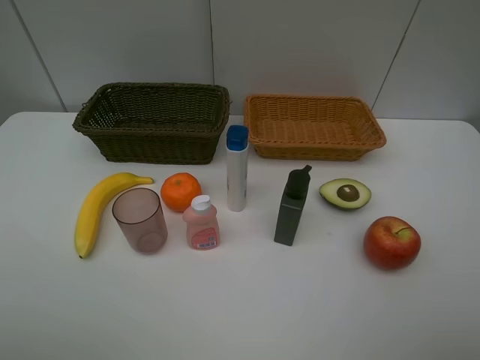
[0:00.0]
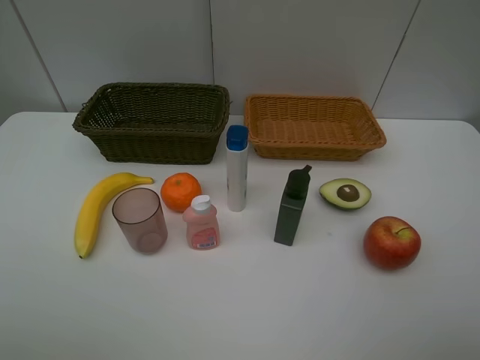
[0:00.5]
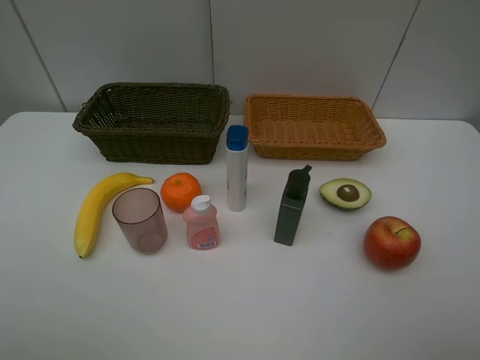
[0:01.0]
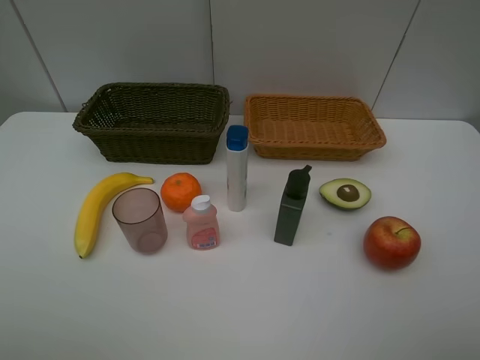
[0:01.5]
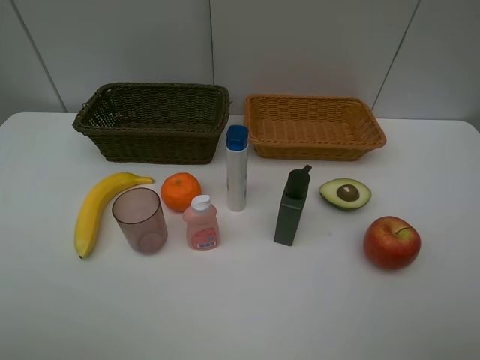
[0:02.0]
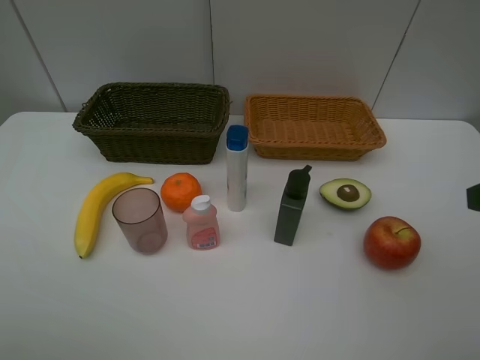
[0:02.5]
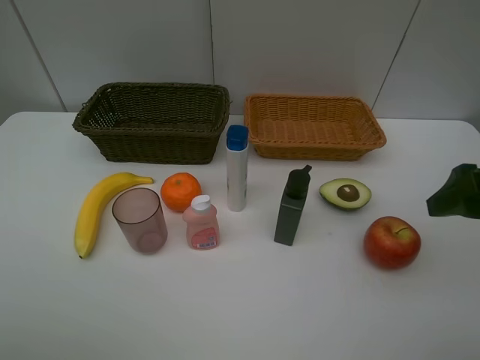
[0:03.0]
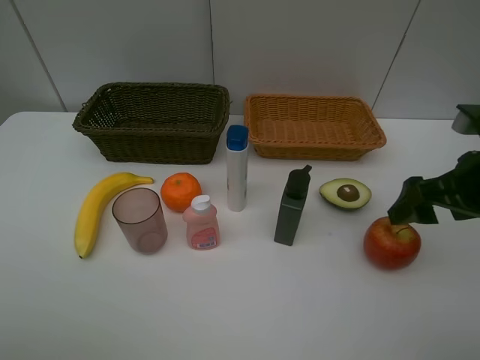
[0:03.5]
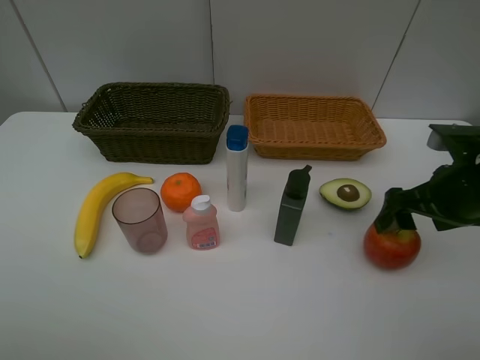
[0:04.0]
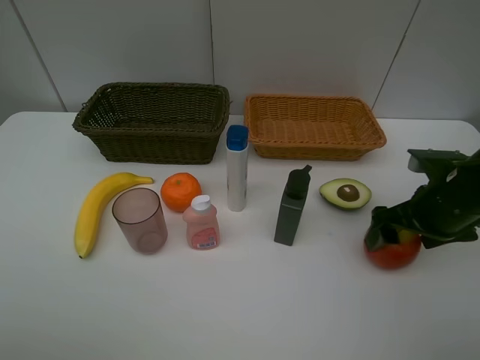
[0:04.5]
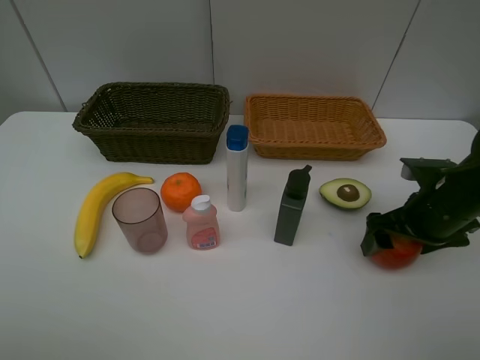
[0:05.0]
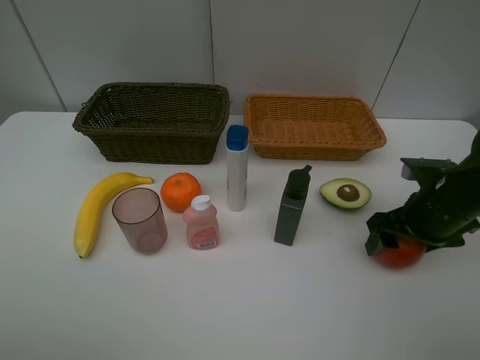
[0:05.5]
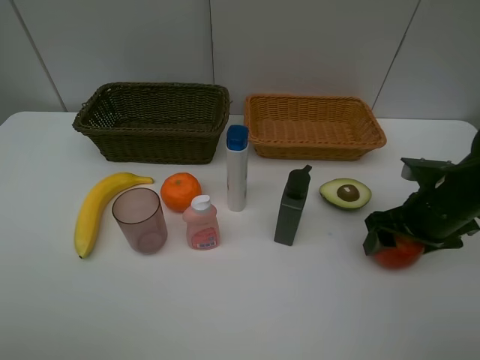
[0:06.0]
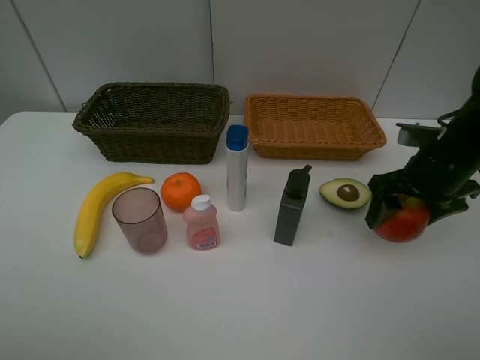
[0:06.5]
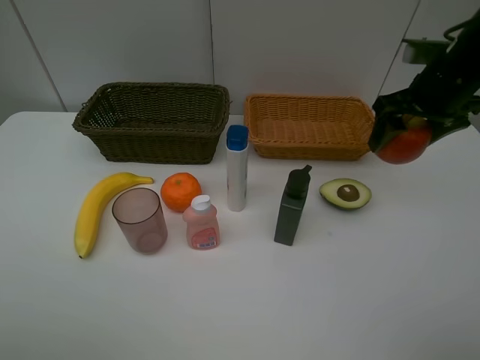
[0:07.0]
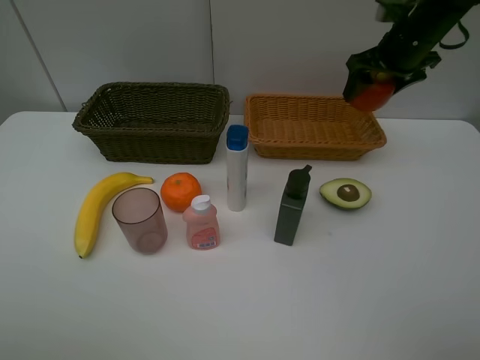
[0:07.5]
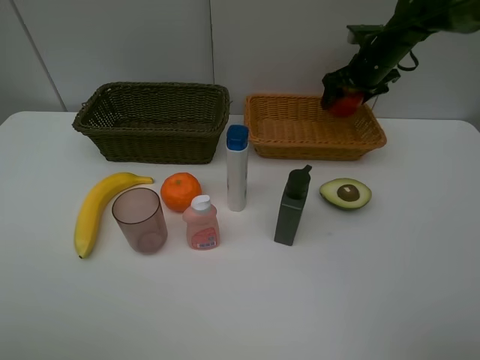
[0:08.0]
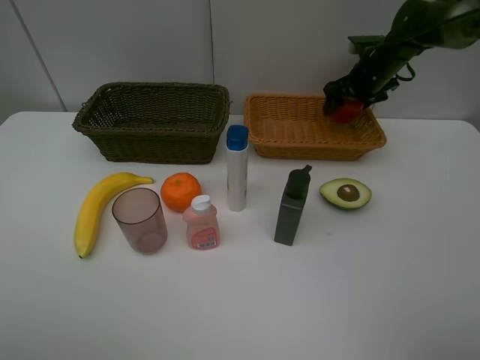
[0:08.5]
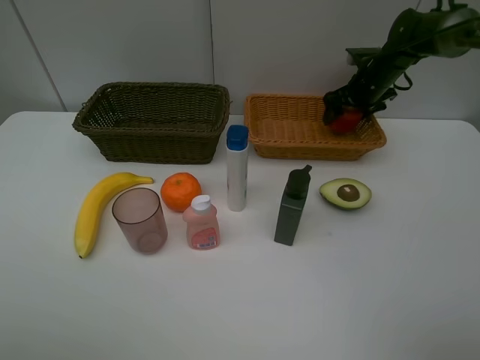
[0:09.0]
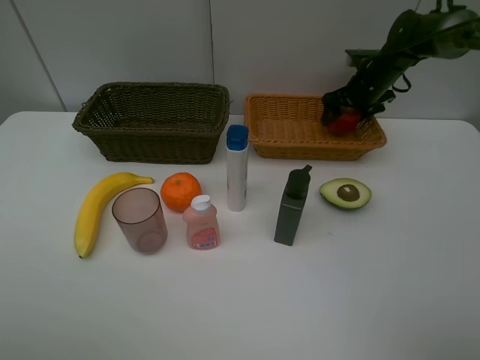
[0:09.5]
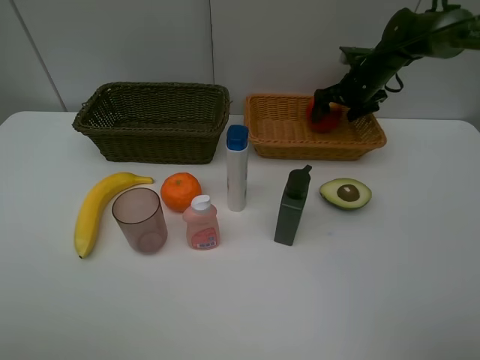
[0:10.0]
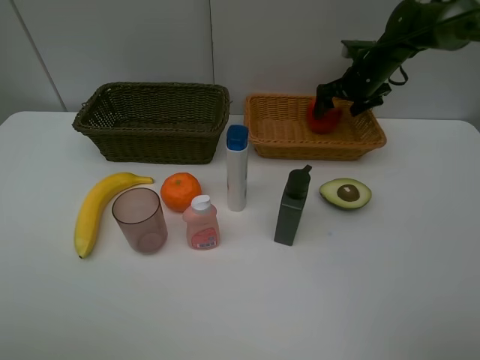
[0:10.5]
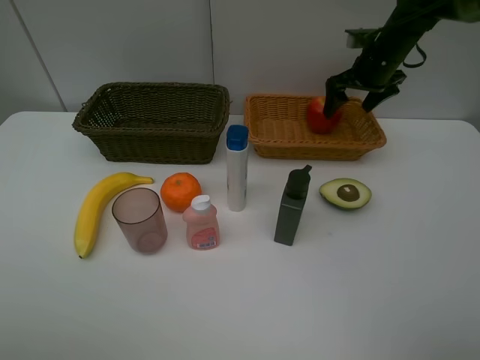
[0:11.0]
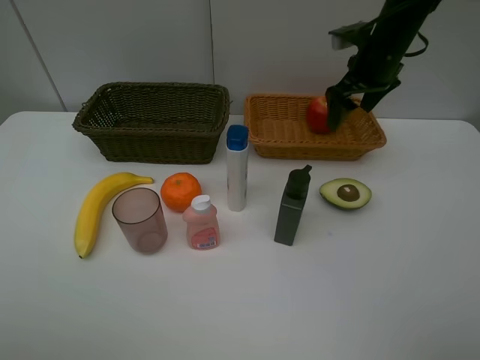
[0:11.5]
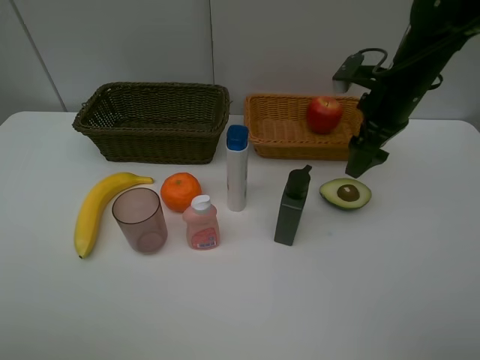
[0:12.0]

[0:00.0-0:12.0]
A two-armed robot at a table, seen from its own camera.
Task of the whole recording: Place multiple objects separately in different baskets.
Step, 0:00.0 to 0:06.5: Pick up the apple with right gripper.
Step, 0:07.0 to 0:10.5: Place the apple in the light basket with right gripper.
0:02.0 to 0:04.0: The right gripper goes approximately 20 cm forward and downward.
0:04.0 to 0:06.0: The right gripper goes approximately 5 cm downward.
0:06.0 to 0:08.0: The right gripper moves forward, some 25 cm.
0:08.0 to 0:10.0: The grippers move only a little.
0:10.0 to 0:12.0: The right gripper goes roughly 15 cm backward.

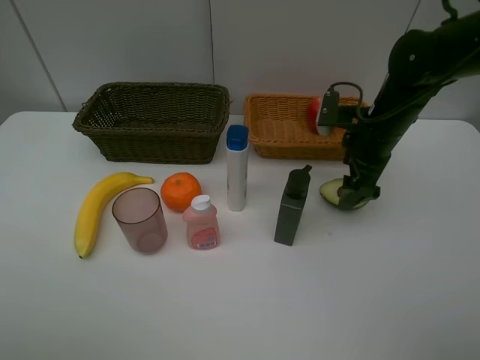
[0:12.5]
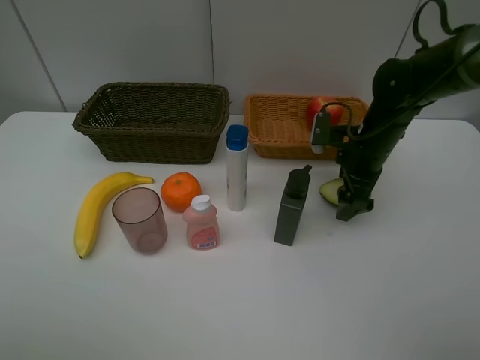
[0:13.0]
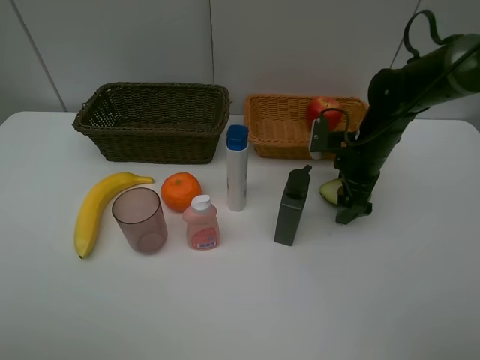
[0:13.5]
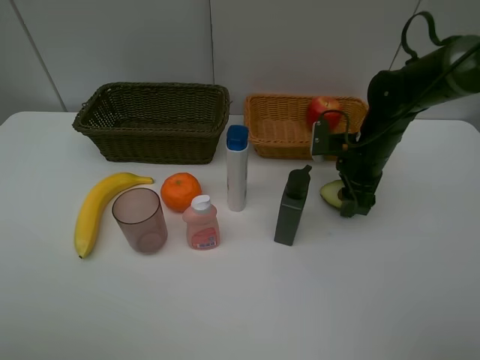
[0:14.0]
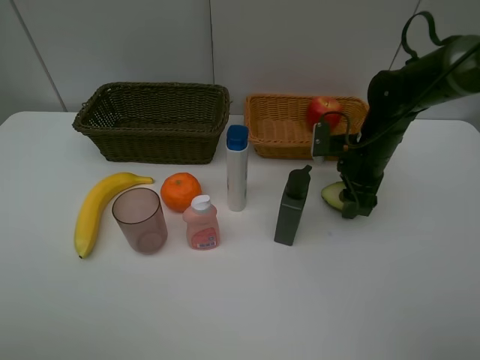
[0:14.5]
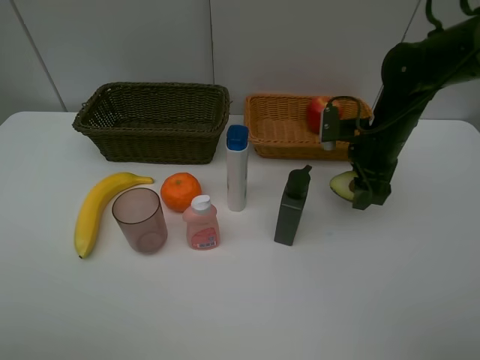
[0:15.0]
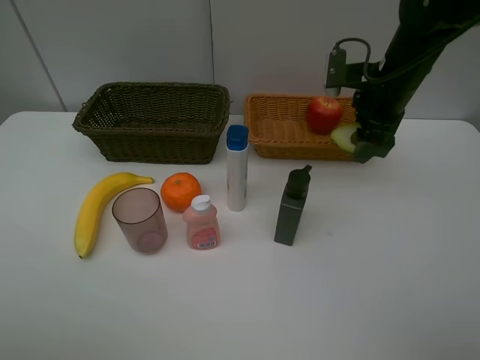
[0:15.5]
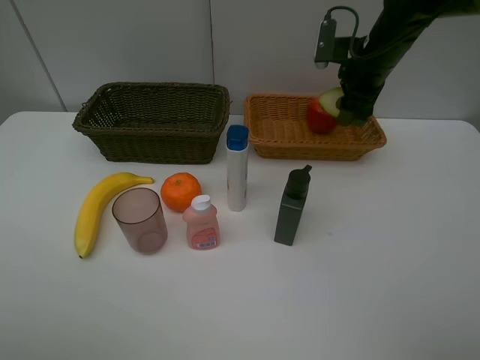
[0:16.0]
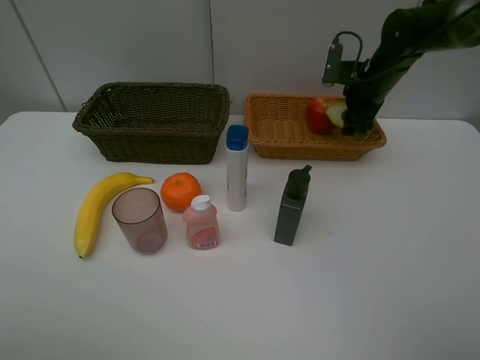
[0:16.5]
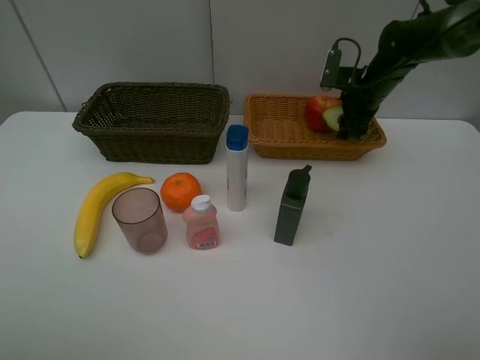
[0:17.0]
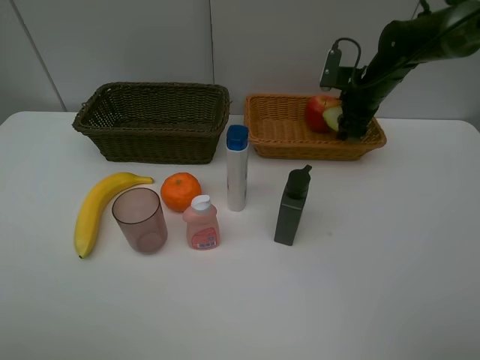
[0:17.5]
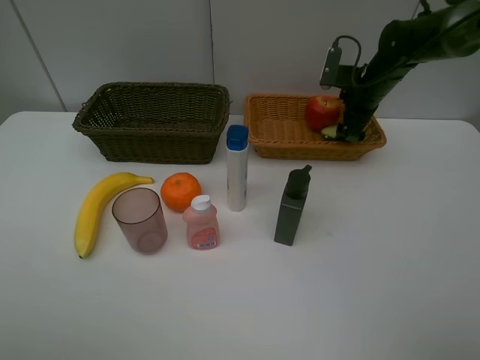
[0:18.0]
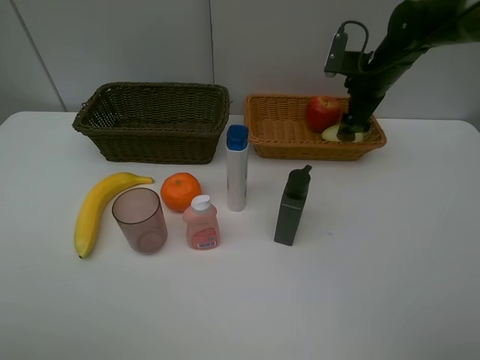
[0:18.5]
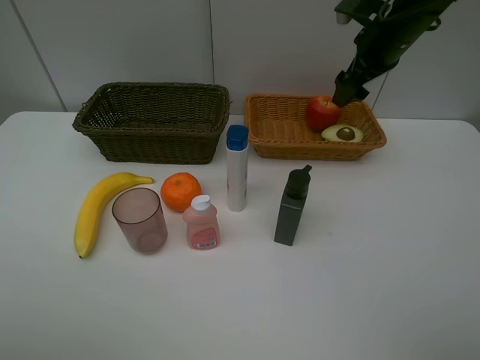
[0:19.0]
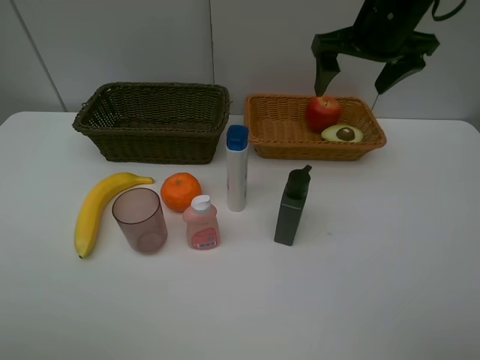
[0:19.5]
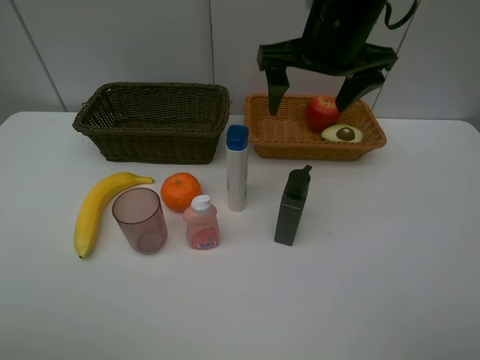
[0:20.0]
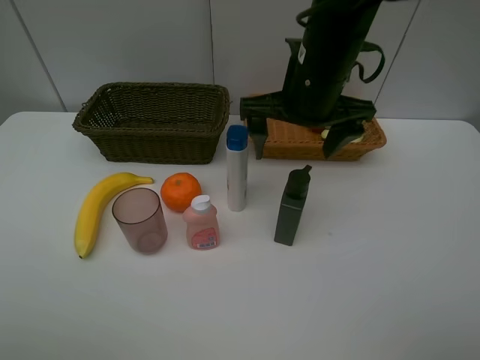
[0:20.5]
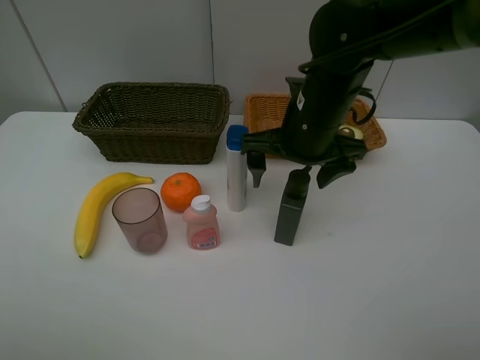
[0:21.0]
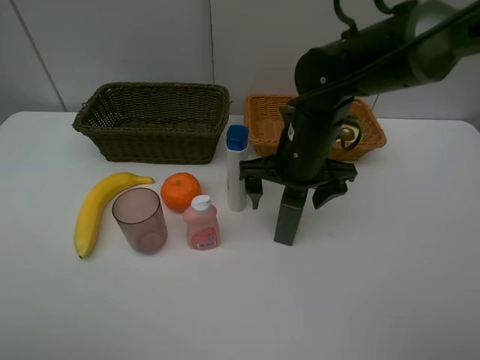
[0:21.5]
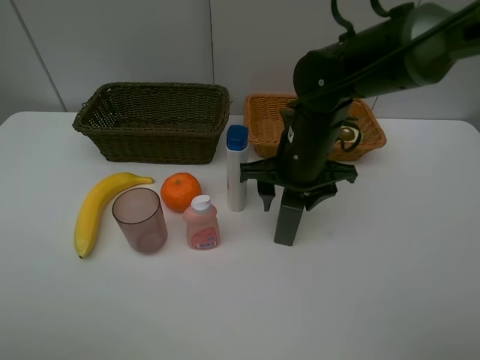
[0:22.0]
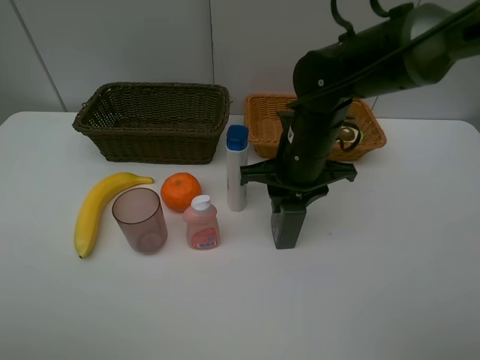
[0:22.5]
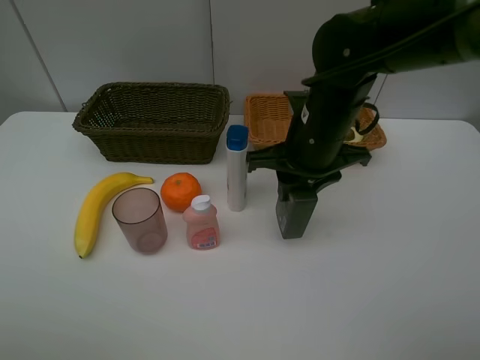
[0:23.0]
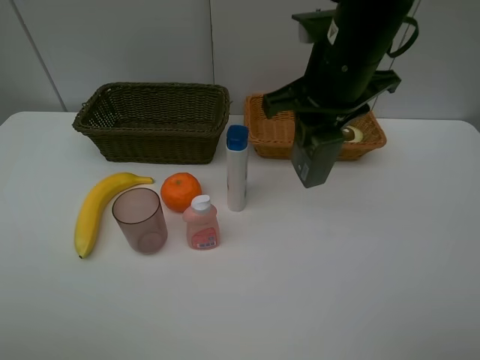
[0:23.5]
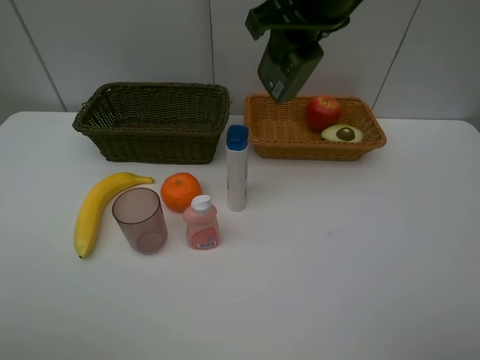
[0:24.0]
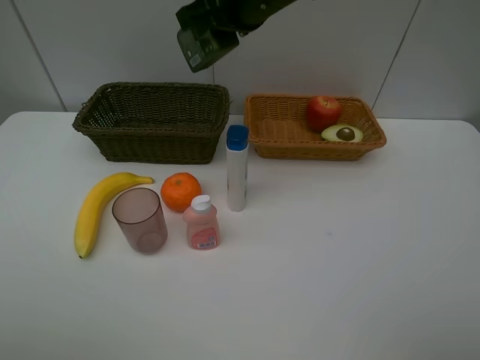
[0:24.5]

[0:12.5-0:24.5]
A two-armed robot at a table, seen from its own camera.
Task of the whole recording: Place multiple objects separately in different baskets.
Step, 0:12.5 to 0:15.0: Pick up the avocado with right gripper.
Step, 0:15.5 to 0:18.5: Place the avocado in the light basket with right gripper.
Step, 0:19.0 to 0:23.0: Pick up the hard facial cleanser with right gripper.
0:12.5 to 0:14.5: The right gripper closes up.
0:14.5 to 0:16.5: The right gripper is displaced forward and upward by some 15 cm.
0:16.5 to 0:18.5: The right gripper opens its fingers.
0:18.5 to 0:20.5: The right gripper travels backward and to the left by some 20 cm.
0:20.5 to 0:22.5: The right gripper travels downward by some 10 cm, and closes.
0:22.5 to 0:24.5: The right gripper is displaced upward, forward and to the left by about 20 cm.

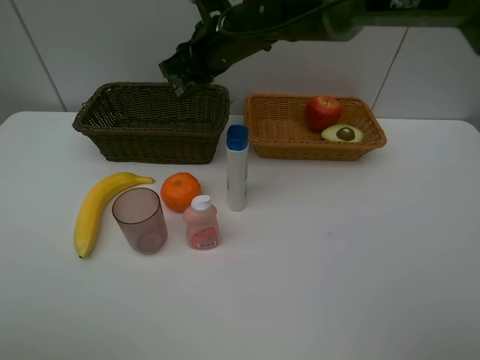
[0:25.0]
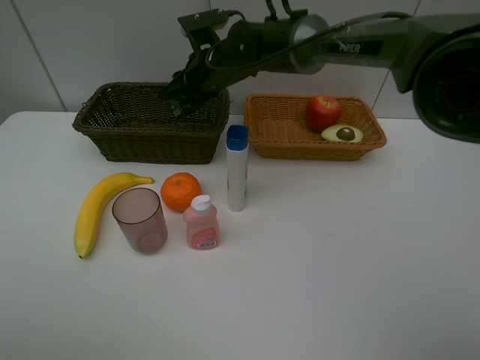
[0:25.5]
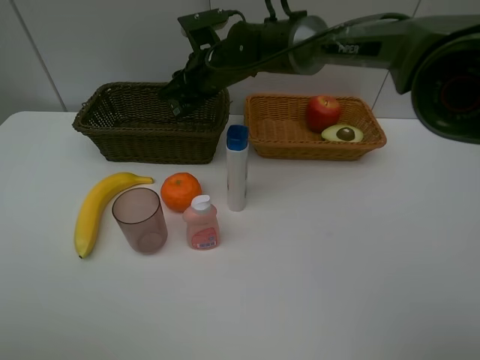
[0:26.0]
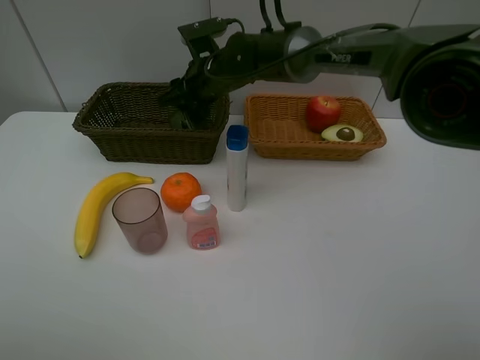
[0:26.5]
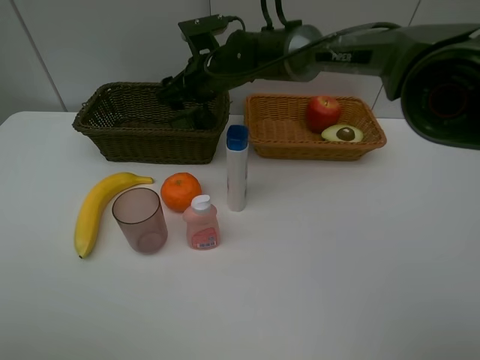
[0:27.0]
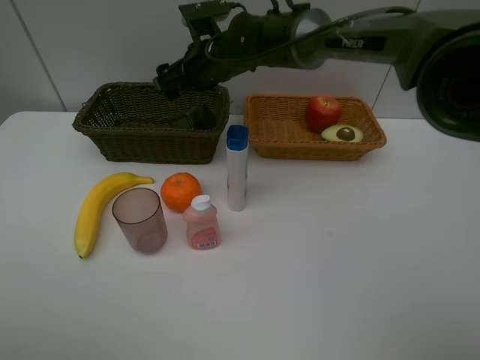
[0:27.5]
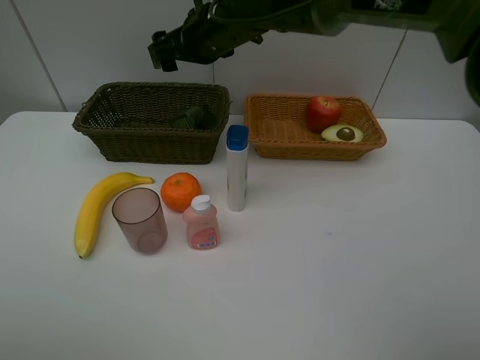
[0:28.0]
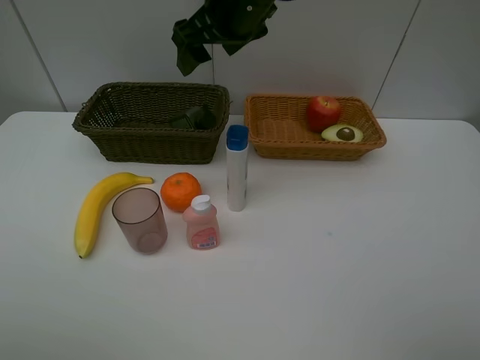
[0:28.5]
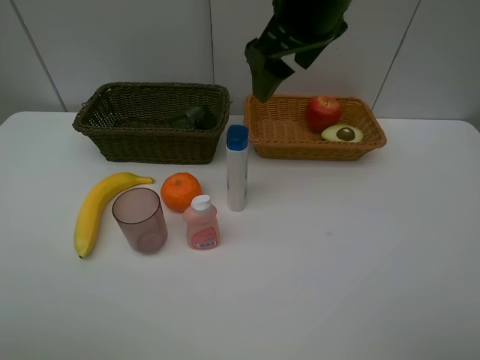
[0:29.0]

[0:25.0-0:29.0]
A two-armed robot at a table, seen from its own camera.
Task of the whole recording: Place multiple objects separately in different baskets.
Step, 0:25.0 to 0:27.5: Place the hard facial cleanser in the dark basket with right gripper.
0:25.0 to 0:27.0: The right gripper moves downward, about 5 cm, and opens its fingers.
0:27.0 to 0:29.0: The right gripper goes approximately 25 cm upward, backward and to the right.
